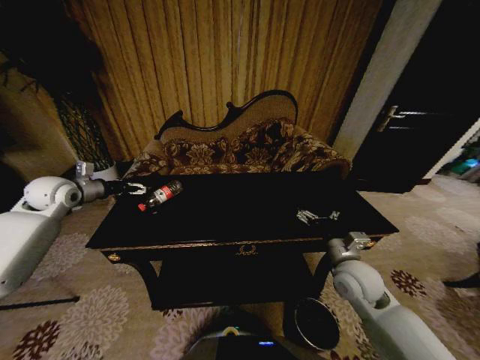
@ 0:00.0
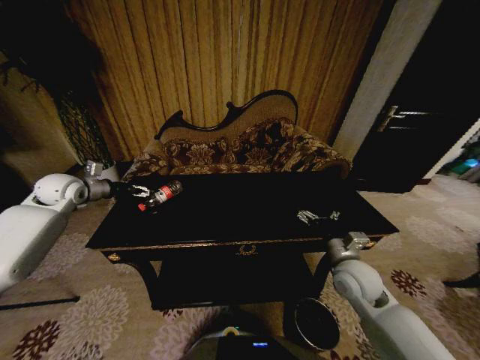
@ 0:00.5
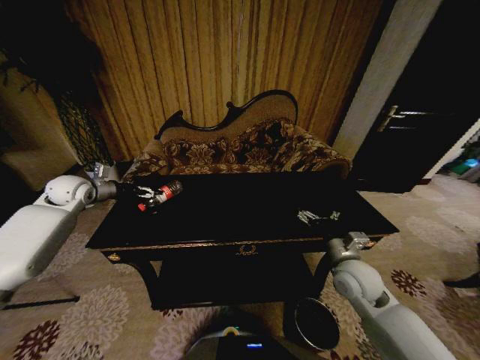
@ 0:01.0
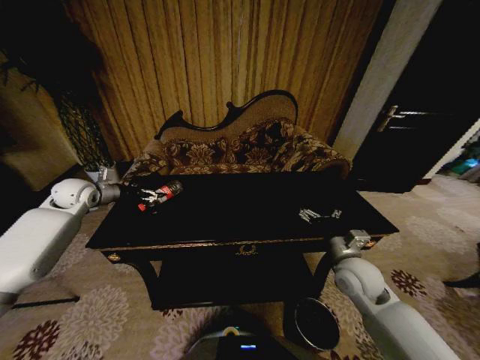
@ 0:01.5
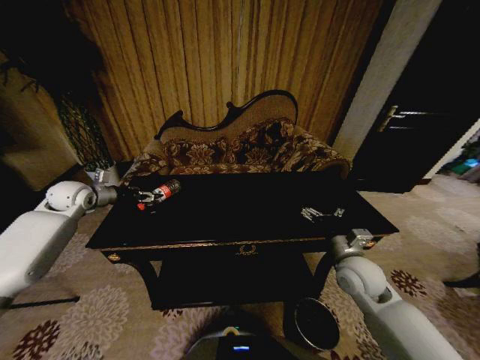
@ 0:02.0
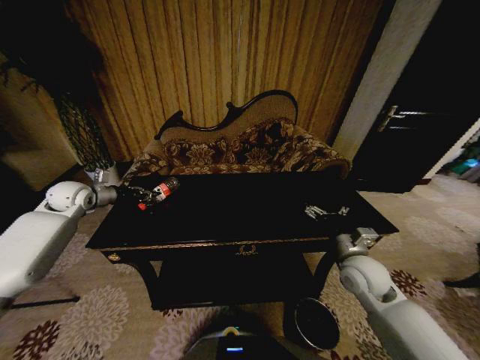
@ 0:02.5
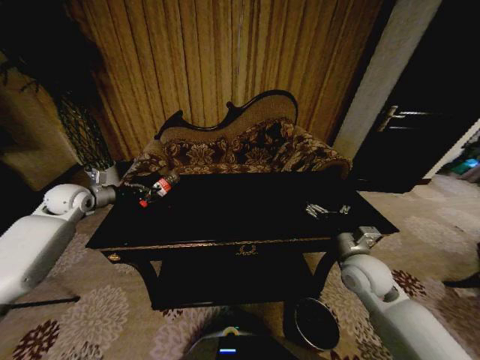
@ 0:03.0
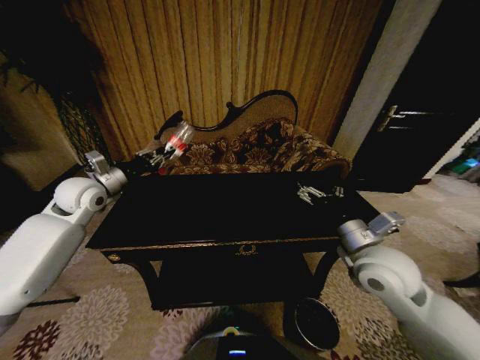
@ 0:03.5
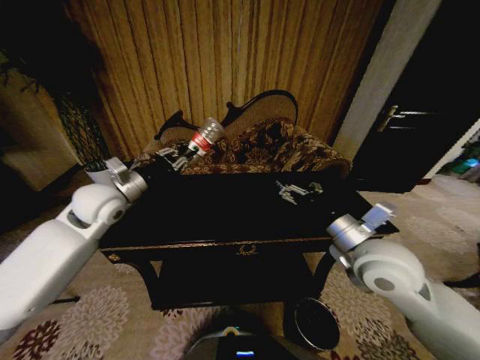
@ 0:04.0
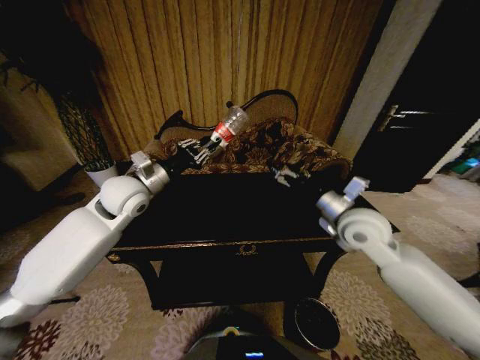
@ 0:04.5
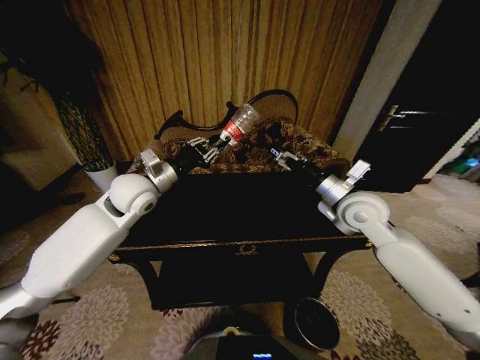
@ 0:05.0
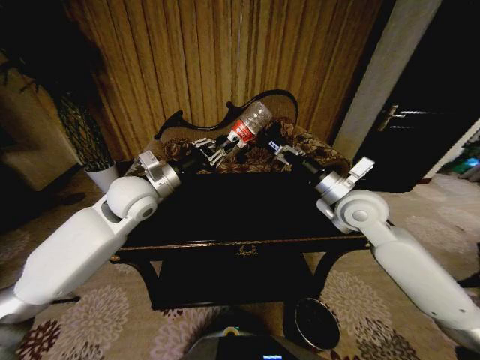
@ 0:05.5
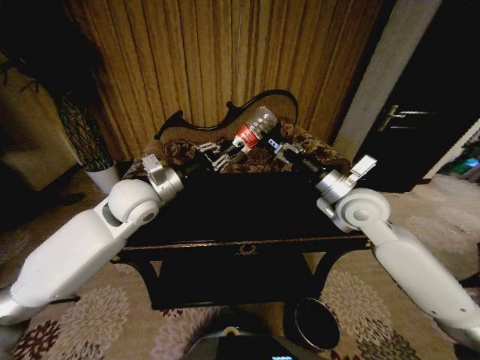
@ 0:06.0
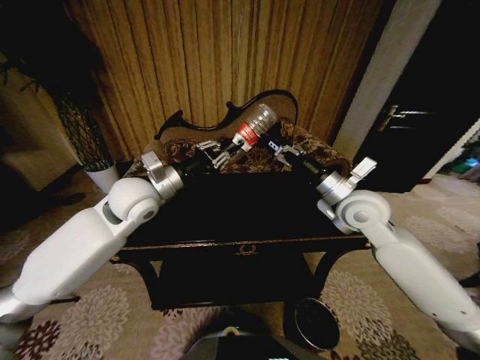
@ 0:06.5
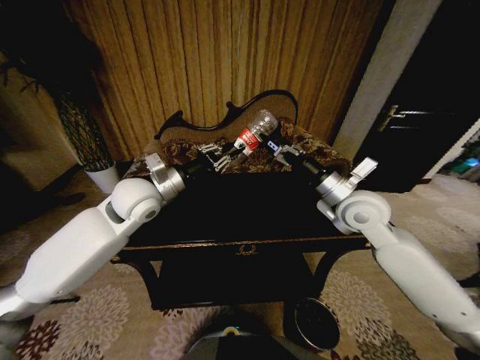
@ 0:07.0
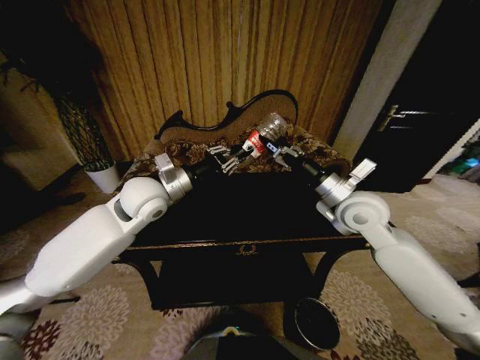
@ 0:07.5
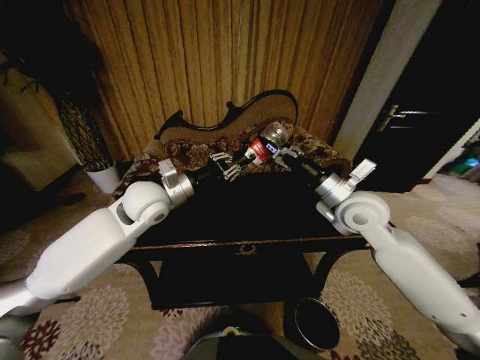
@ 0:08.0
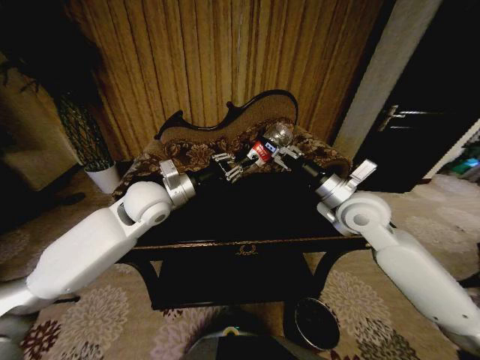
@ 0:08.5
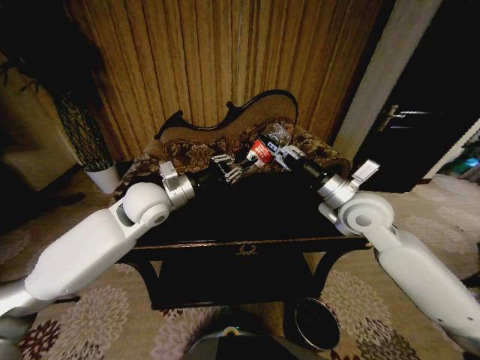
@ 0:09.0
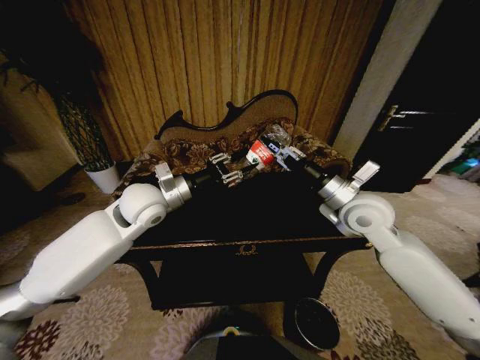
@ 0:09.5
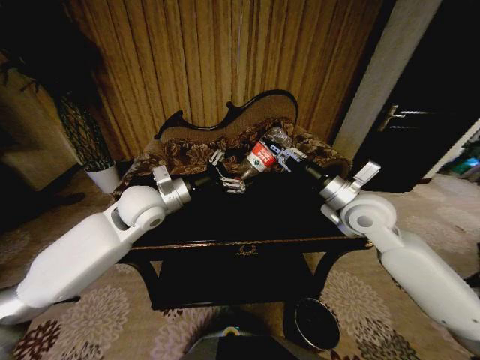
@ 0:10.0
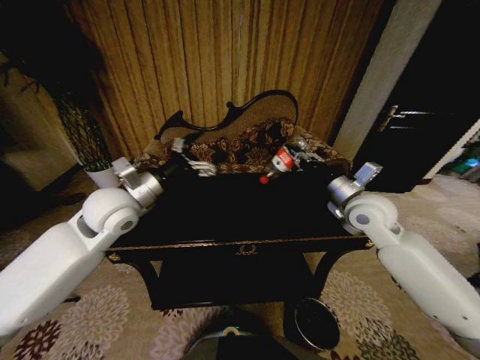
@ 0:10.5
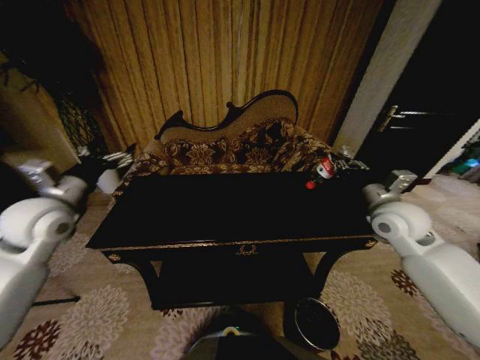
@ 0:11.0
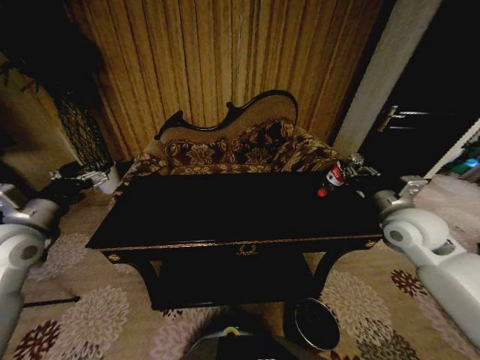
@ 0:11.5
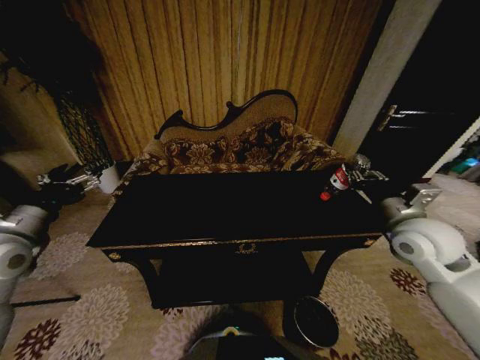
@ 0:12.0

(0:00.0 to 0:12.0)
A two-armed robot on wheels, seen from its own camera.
Task of the whole recording: Move to the front of the table and place the trash on the table into the trash bin.
0:00.0 - 0:02.0: The grippers make only small movements.
0:02.0 - 0:04.0: The right gripper is displaced upward by roughly 15 cm. The left gripper is displaced to the right and backward by about 20 cm, and closes its fingers.
0:04.0 - 0:06.0: The right gripper is displaced forward by some 10 cm, while the left gripper goes some 10 cm to the right.
0:06.0 - 0:08.0: The grippers move only a little.
0:08.0 - 0:10.0: The left gripper opens, while the right gripper closes its fingers.
0:10.0 - 0:12.0: The left gripper goes approximately 25 cm to the left and backward. Meanwhile the right gripper heads to the right and backward, covering about 10 cm.

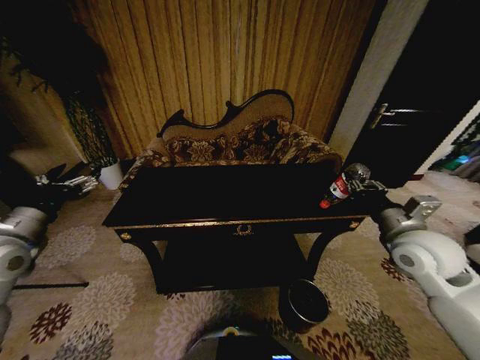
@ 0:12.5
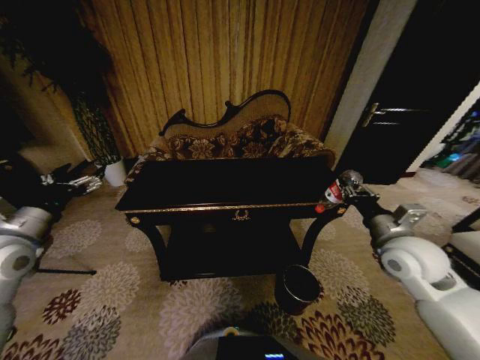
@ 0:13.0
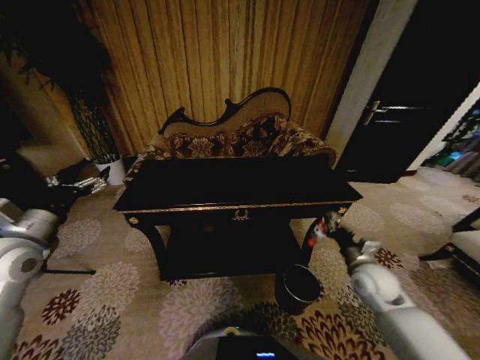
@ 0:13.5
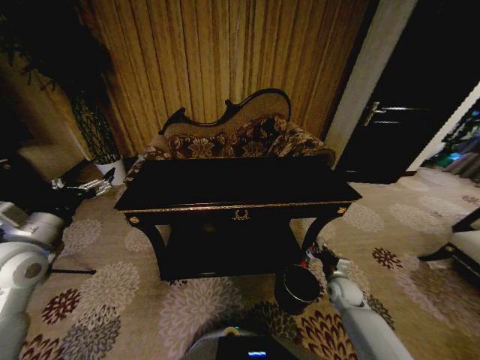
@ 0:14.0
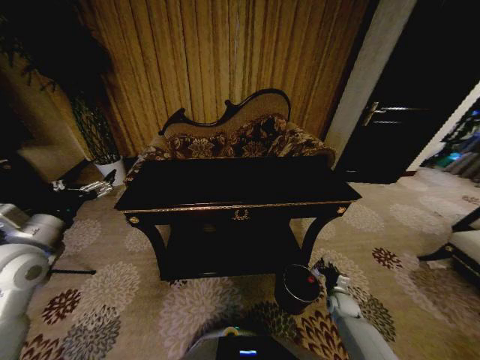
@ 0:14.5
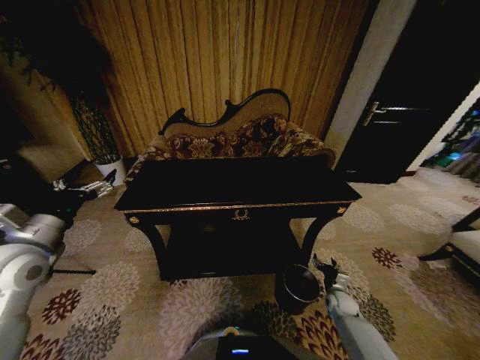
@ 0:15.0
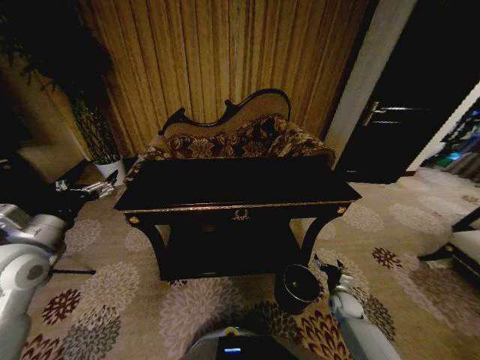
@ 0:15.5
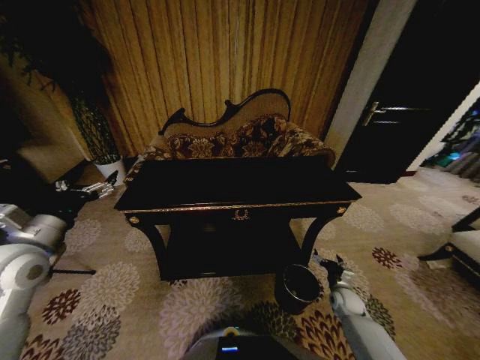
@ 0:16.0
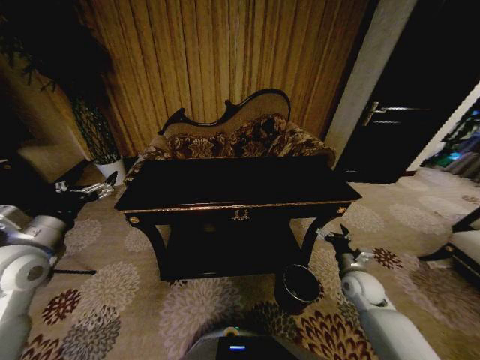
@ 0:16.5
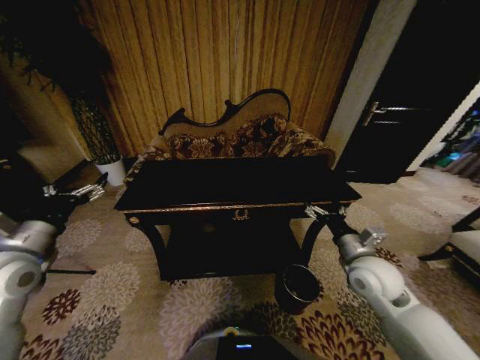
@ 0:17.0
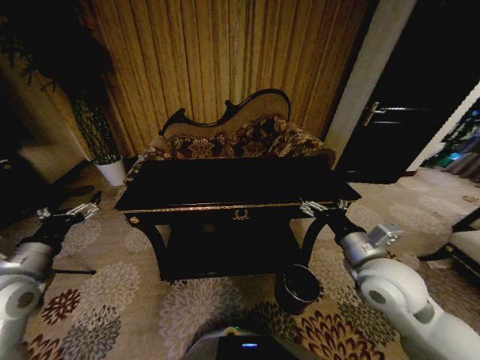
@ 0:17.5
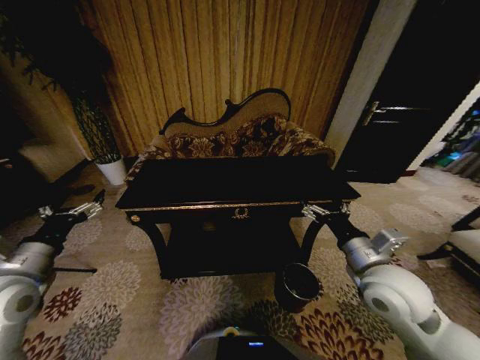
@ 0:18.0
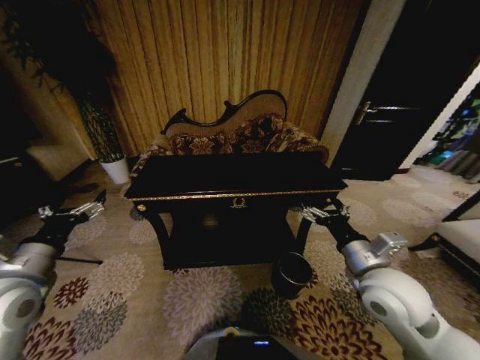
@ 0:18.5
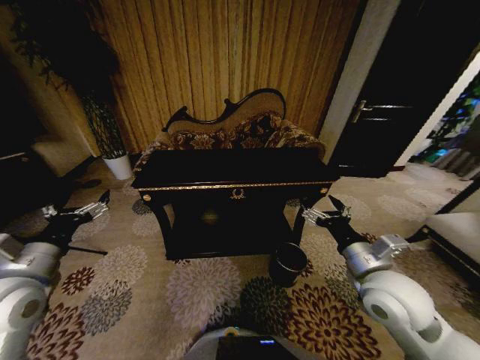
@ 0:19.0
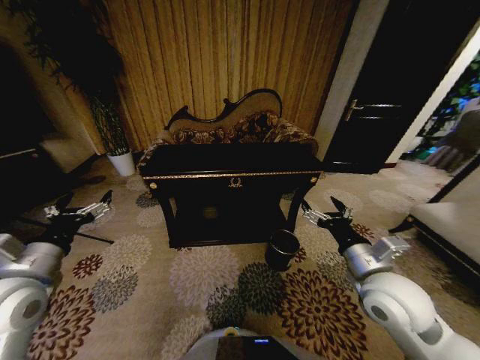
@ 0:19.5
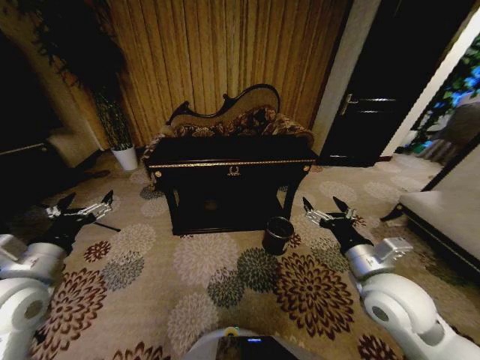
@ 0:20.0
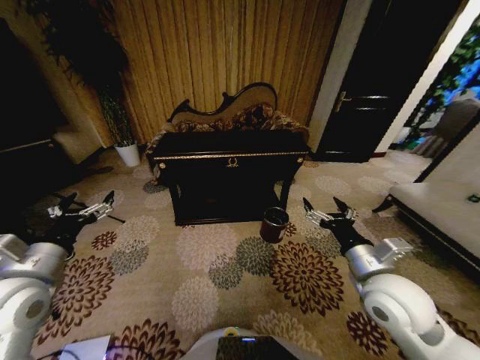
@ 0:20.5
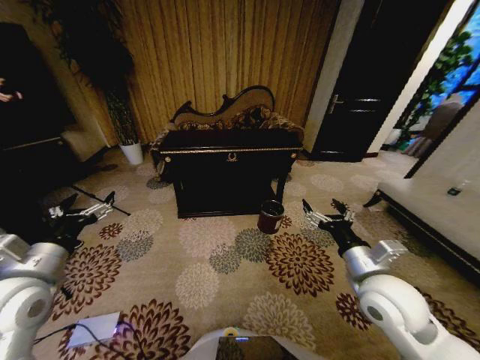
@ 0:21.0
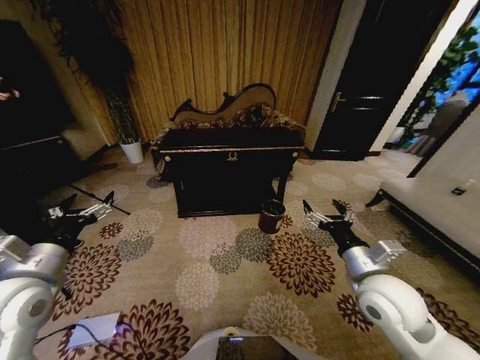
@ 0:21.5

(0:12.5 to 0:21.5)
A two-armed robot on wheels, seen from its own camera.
Task of the whole recording: Move to the front of the table and place the trash on the table into the trash bin.
0:12.5 - 0:14.5: The right gripper shifts approximately 40 cm downward.
0:14.5 - 0:17.0: The right gripper is displaced upward by approximately 30 cm, and opens its fingers.
0:17.0 - 0:19.5: The left gripper ends up approximately 5 cm from where it was; the right gripper is displaced backward and upward by some 10 cm.

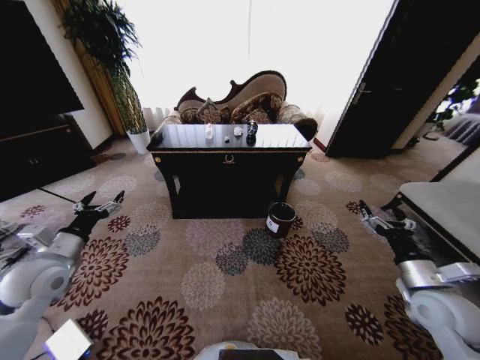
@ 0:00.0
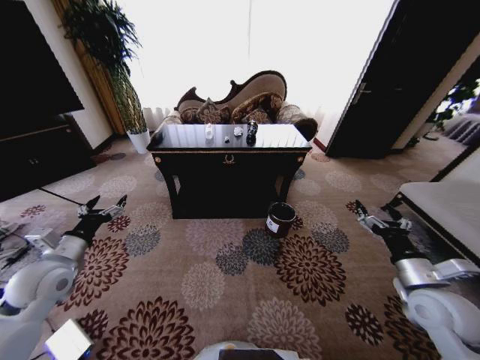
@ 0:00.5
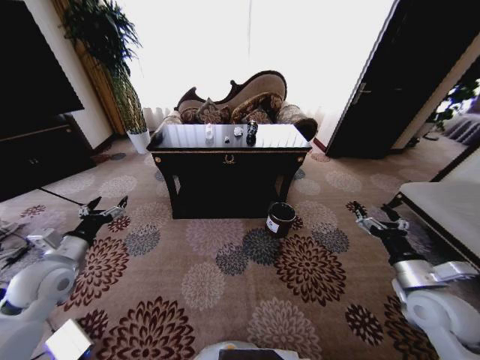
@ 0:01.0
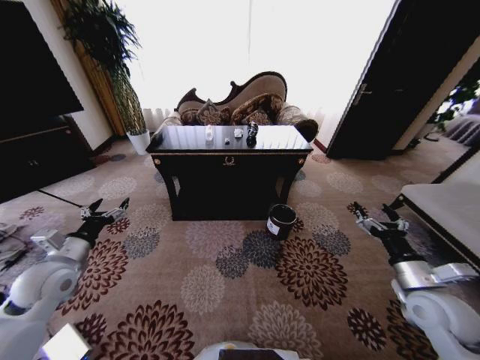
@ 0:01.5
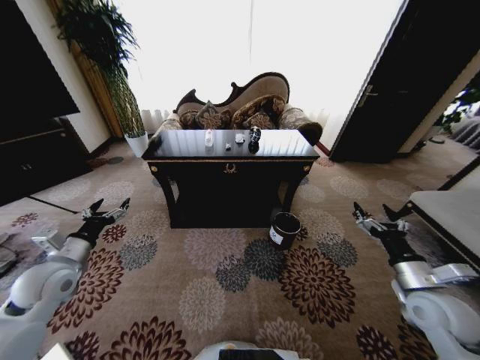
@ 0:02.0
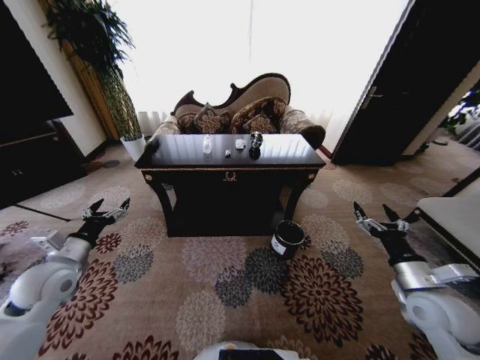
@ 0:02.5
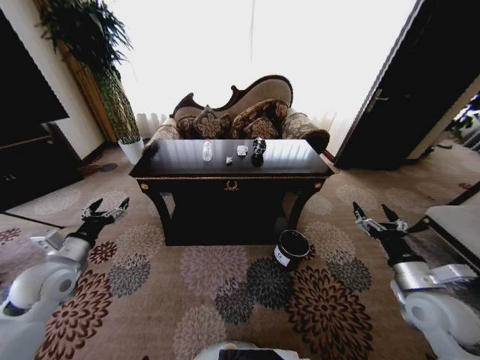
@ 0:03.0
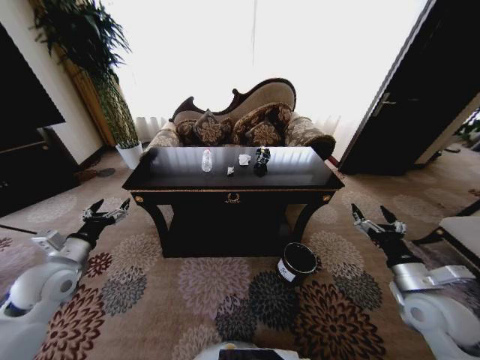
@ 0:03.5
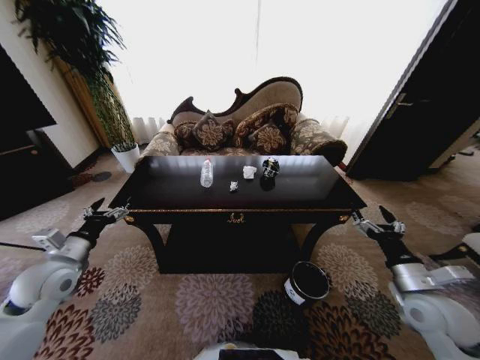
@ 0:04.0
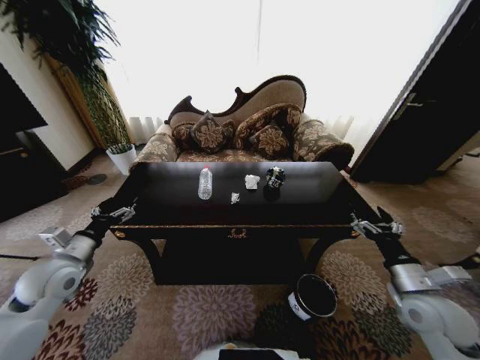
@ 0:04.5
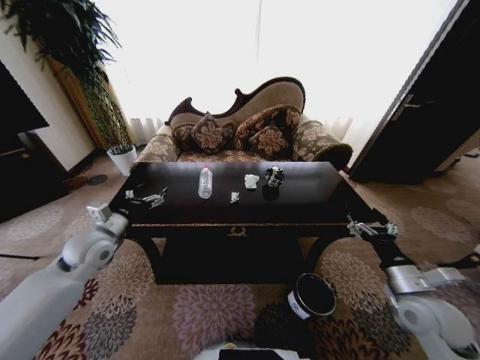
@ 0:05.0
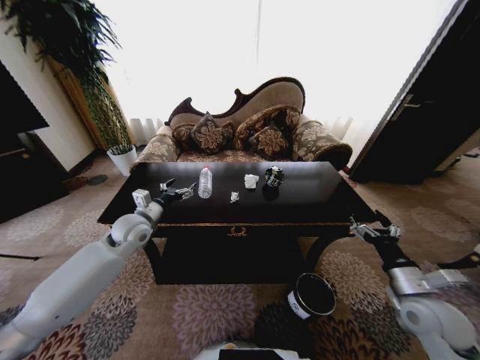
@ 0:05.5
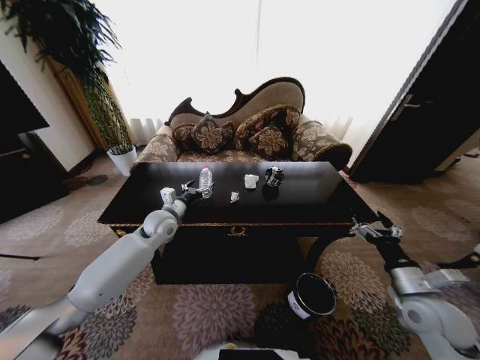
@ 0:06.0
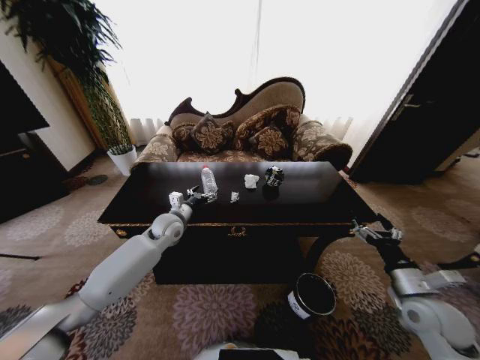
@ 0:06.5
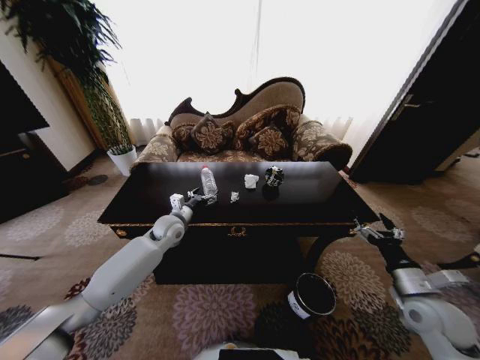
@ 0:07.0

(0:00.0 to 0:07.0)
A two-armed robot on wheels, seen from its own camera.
Task of the whole recording: Move to the front of the table and place the trash on the table into the trash bin.
0:03.5 - 0:05.0: The left gripper travels forward and to the right by some 10 cm.
0:05.0 - 0:07.0: The left gripper shifts about 20 cm to the right, forward and downward.
